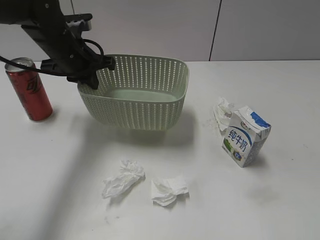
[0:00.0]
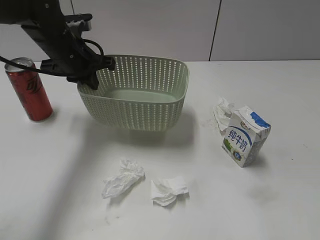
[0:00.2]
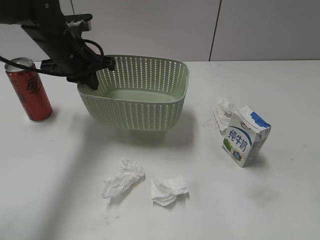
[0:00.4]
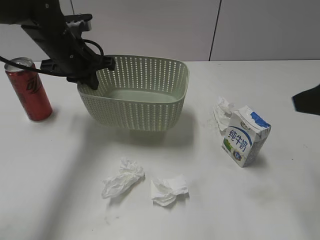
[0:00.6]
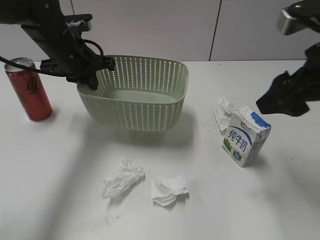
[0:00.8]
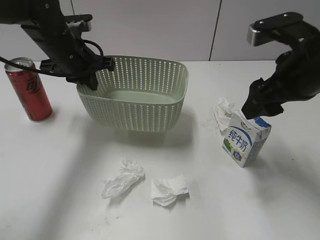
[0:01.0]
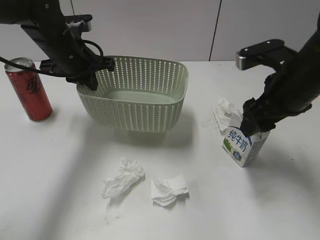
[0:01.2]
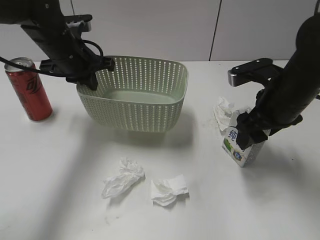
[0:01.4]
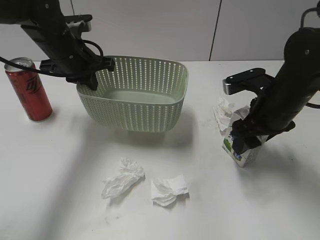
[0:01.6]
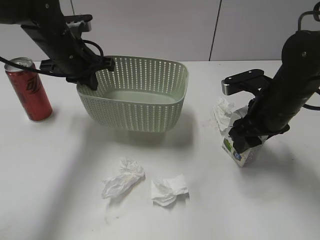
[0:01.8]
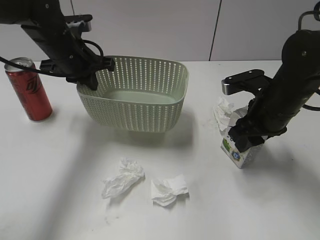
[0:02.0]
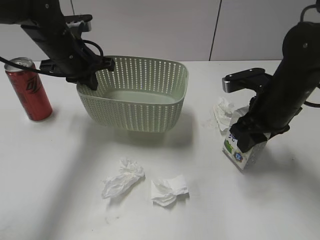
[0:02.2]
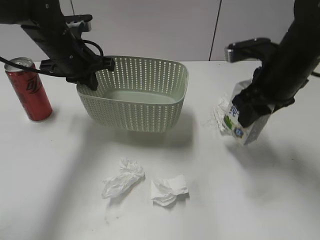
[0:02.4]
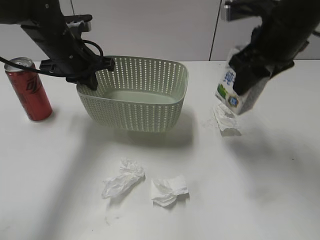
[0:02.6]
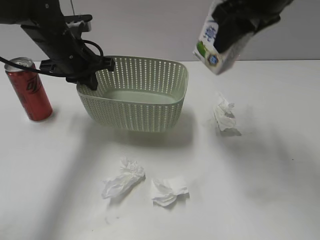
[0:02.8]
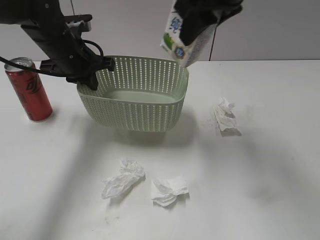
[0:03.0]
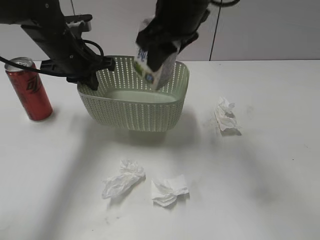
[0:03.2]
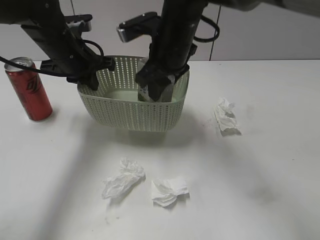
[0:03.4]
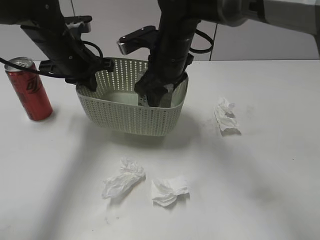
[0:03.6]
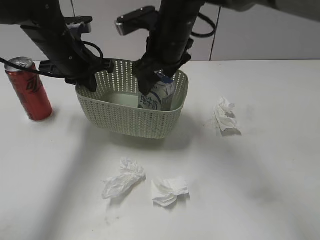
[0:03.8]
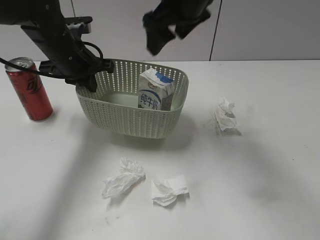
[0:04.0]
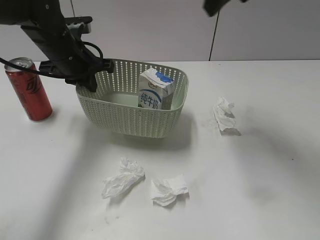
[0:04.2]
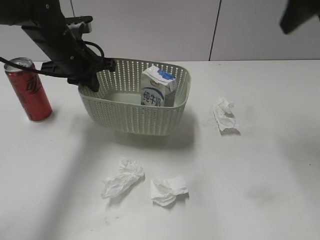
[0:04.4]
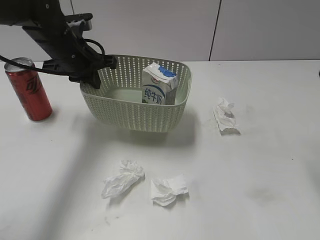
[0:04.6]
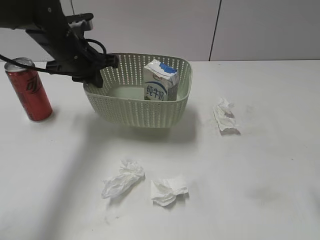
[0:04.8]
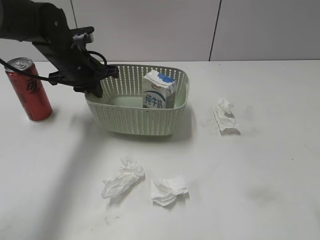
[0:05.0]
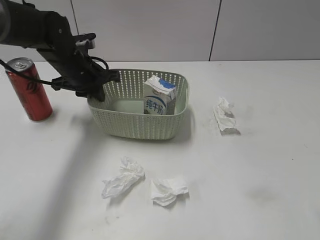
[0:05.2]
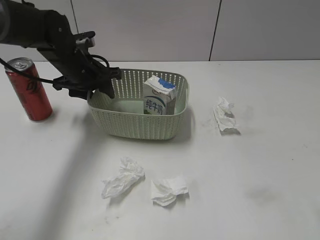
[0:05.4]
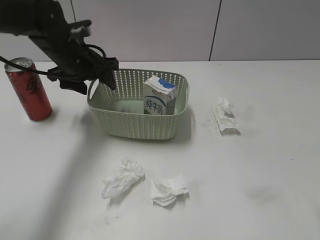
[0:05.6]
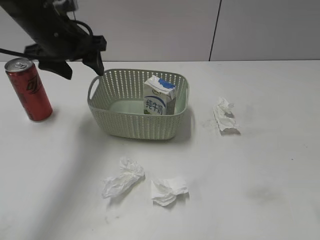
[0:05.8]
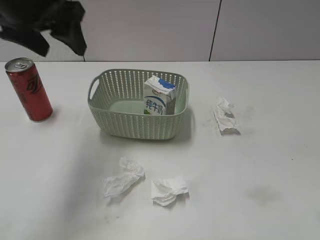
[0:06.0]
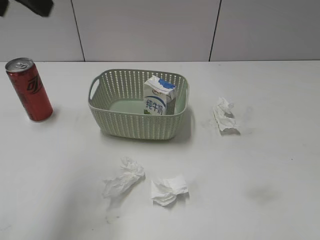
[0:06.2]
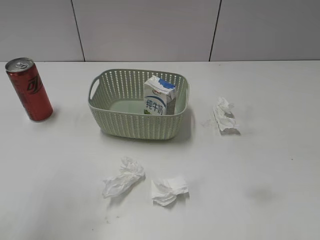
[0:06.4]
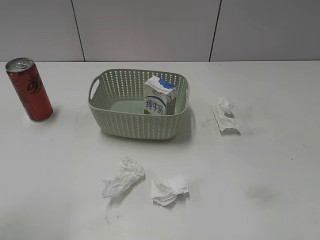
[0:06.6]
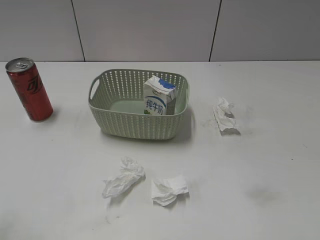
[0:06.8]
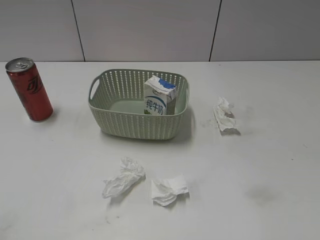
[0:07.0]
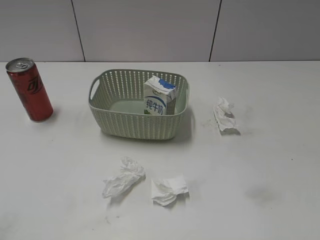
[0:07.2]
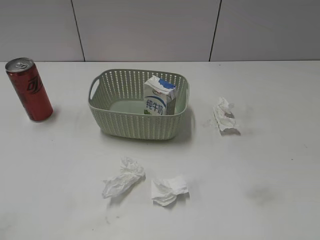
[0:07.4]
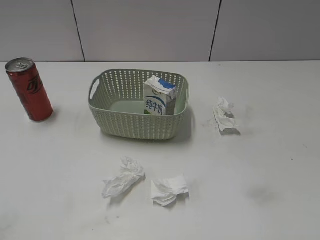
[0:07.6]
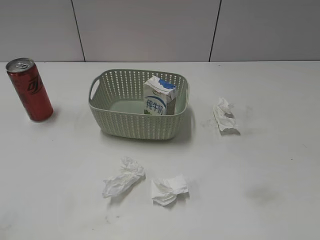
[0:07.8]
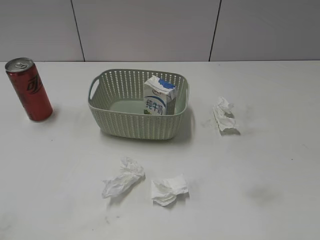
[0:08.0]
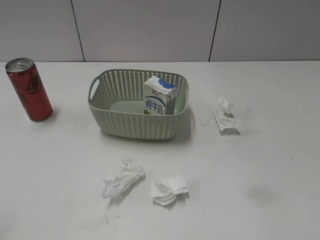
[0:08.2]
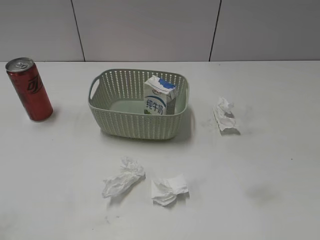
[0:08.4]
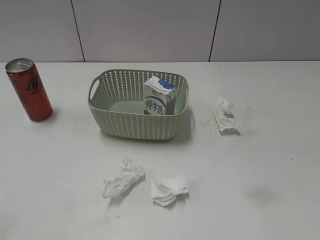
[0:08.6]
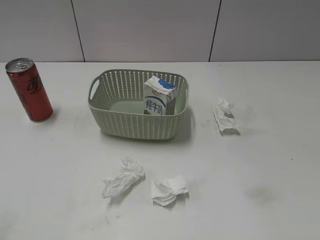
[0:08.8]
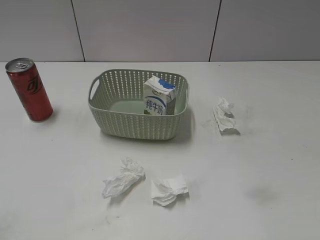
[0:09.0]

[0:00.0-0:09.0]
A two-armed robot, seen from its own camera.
Step, 0:00.0 to 0:02.0: Grasp the milk with right gripper.
Step, 0:02.2 to 0:04.0: Place the milk in the basket with right gripper.
Step, 0:04.2 to 0:05.8: Place the basket on the table with left gripper.
0:00.0 to 0:01.6: The right gripper travels forward and downward by about 30 cm.
0:01.6 to 0:03.0: The right gripper goes approximately 20 cm upward and to the left, and closes up.
0:03.0 to 0:04.4: The right gripper heads to the right, covering roughly 15 cm, and opens.
0:04.4 to 0:06.0: The left gripper goes roughly 15 cm upward and backward, and opens up; the right gripper travels backward and downward by about 20 cm.
0:06.0 to 0:07.6: The right gripper moves backward, some 10 cm, while the left gripper is displaced backward and to the left by some 30 cm.
